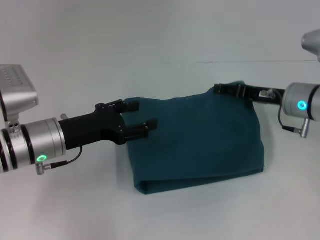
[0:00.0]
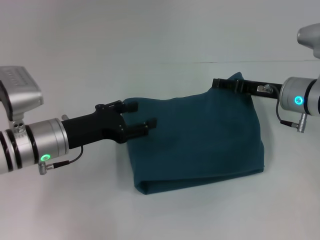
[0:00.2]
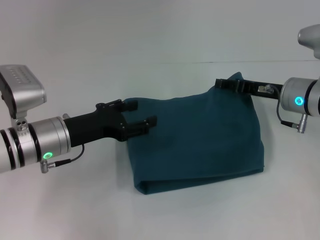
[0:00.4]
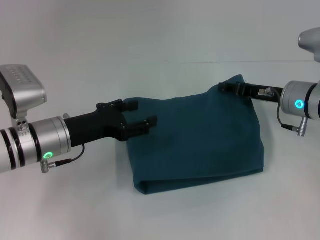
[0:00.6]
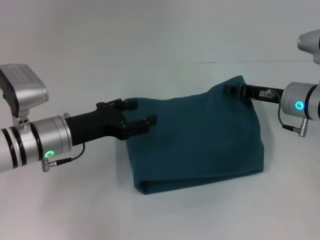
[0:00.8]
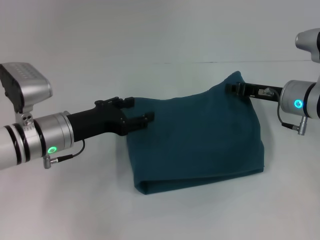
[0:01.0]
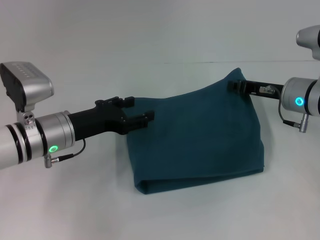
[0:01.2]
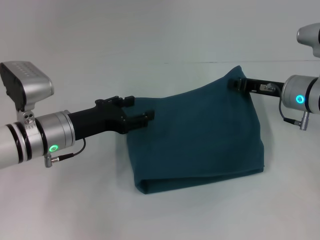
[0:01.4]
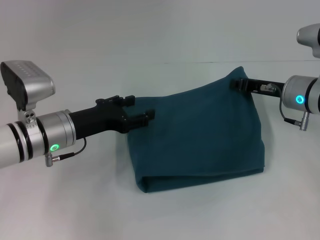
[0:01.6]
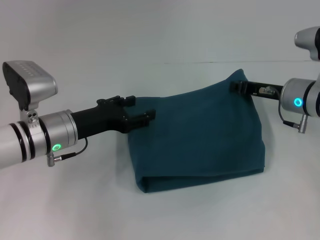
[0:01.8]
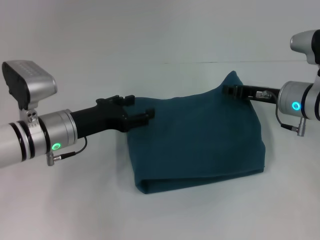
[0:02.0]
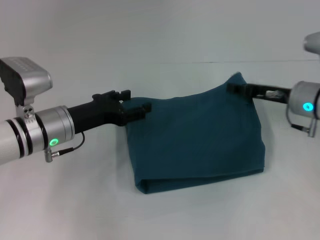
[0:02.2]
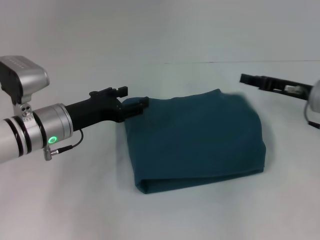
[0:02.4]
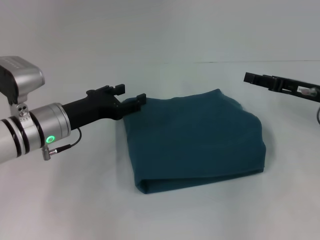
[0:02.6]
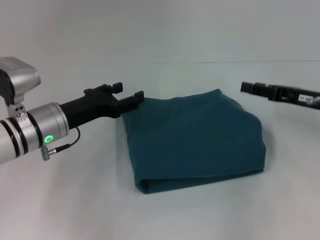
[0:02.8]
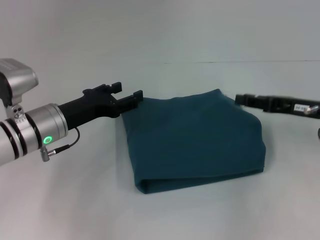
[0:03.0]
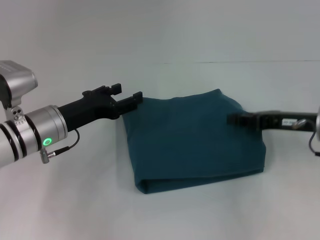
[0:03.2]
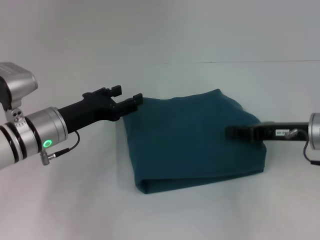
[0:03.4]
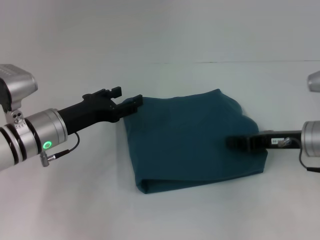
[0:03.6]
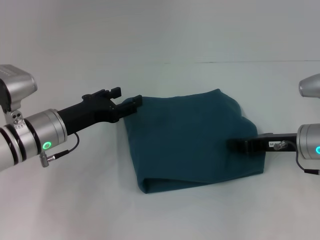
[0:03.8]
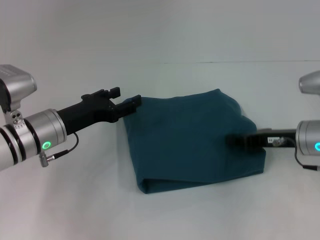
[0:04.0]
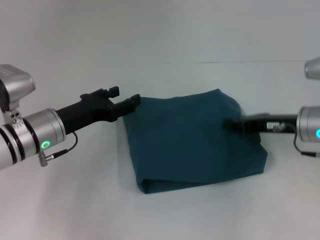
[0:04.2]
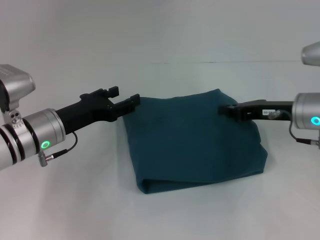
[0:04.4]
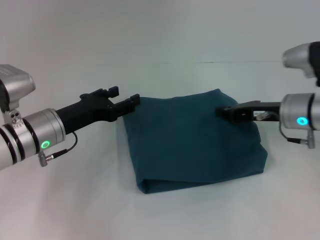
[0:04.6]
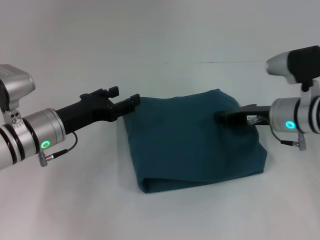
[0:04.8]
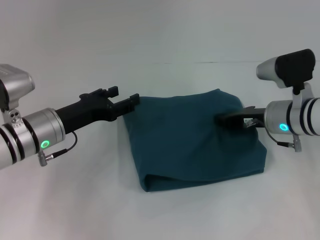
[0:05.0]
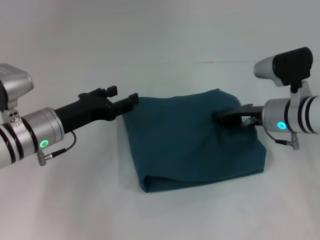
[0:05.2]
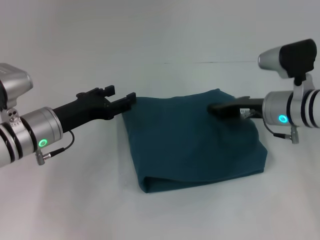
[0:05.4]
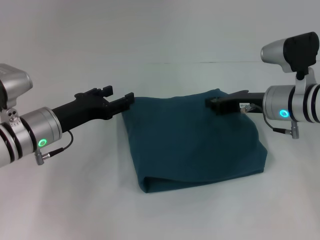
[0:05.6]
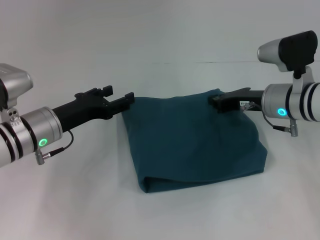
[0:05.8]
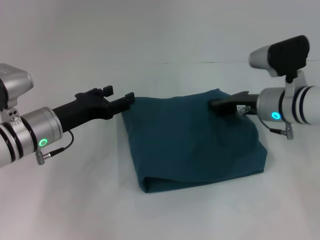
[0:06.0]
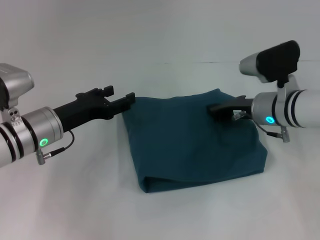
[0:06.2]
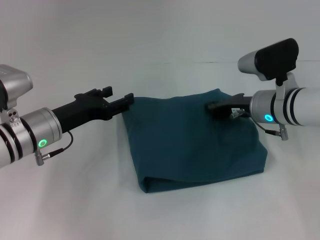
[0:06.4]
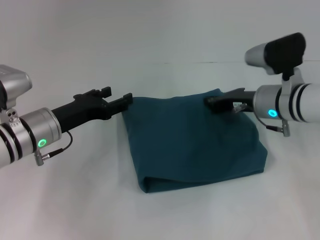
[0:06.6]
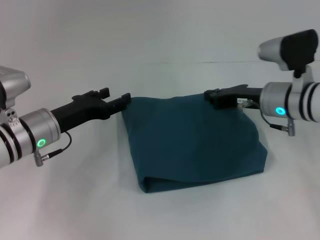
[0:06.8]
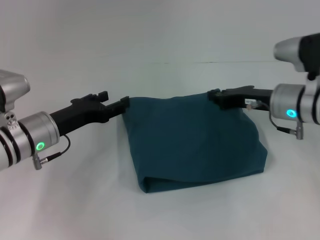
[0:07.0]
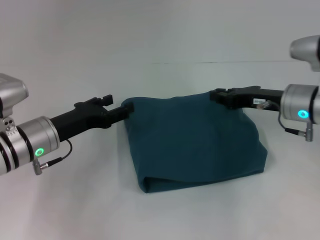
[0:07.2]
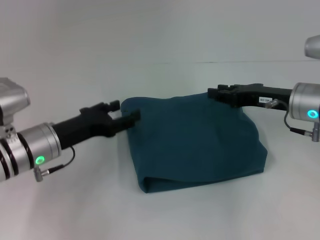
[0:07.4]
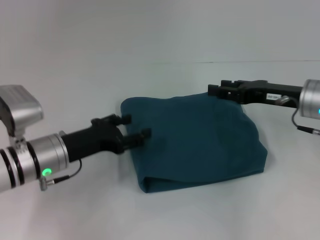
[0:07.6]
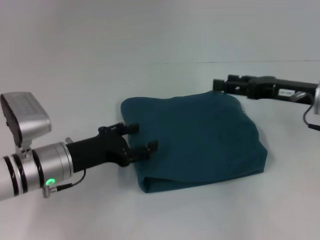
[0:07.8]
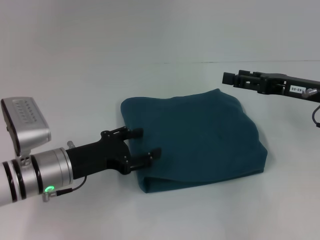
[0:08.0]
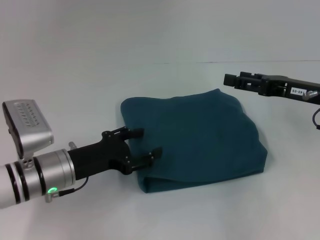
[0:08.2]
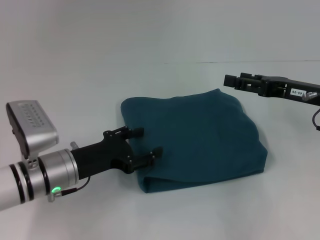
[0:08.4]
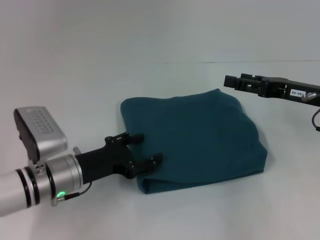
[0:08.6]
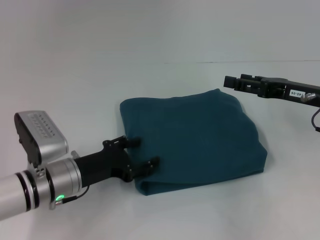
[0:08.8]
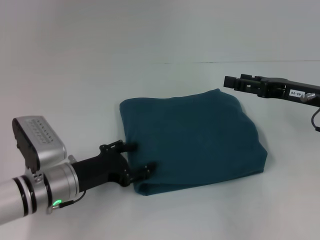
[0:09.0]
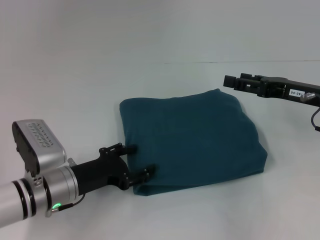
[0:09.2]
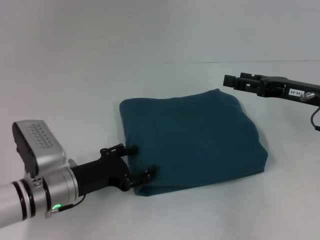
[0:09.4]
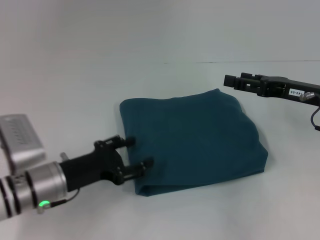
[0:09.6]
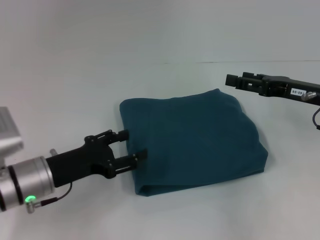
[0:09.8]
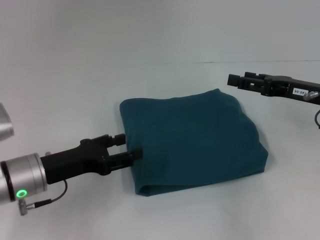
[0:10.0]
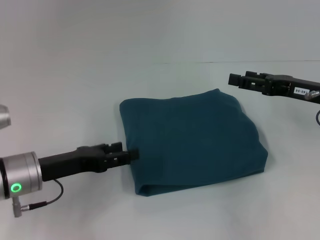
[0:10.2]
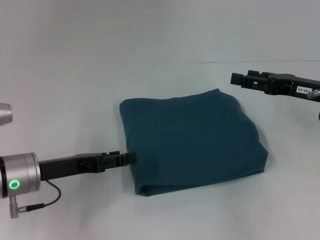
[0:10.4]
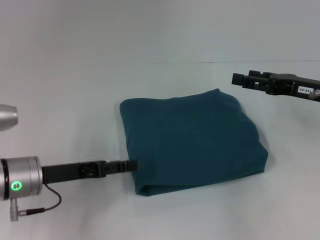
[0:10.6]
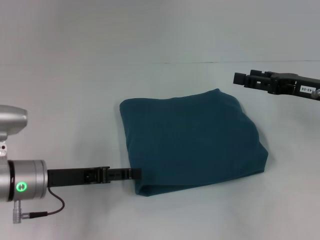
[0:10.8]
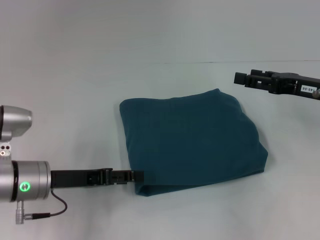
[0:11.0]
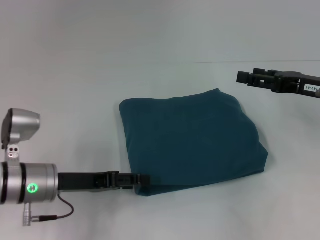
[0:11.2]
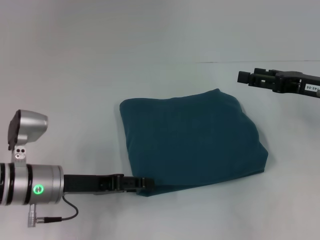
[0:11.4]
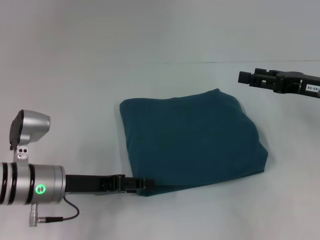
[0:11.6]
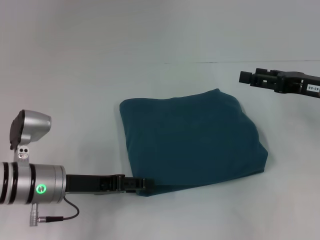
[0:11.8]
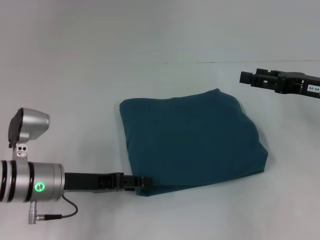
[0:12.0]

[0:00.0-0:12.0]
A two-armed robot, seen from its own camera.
0:00.0 to 0:01.6: The right gripper closes its fingers.
0:01.6 to 0:03.0: The right gripper shifts approximately 5 cm backward, and opens.
0:03.0 to 0:04.4: The right gripper closes up.
0:04.4 to 0:06.0: The right gripper moves approximately 5 cm.
0:06.0 to 0:07.6: The right gripper shifts by approximately 5 cm, and opens its fingers.
0:07.6 to 0:09.0: The right gripper opens its fingers.
0:09.0 to 0:10.4: The left gripper changes place by approximately 5 cm.
0:10.4 to 0:12.0: There are only small adjustments of the grippers.

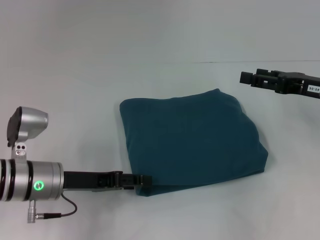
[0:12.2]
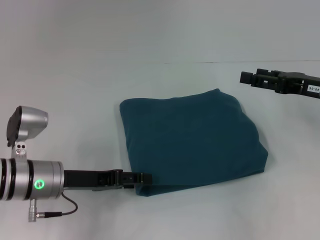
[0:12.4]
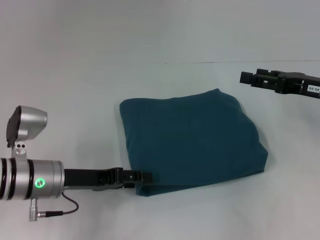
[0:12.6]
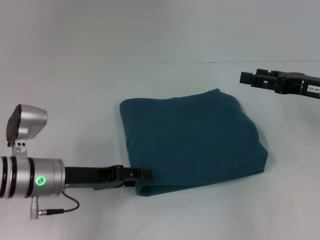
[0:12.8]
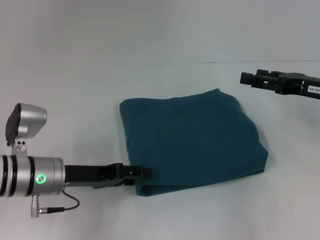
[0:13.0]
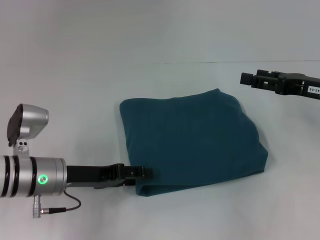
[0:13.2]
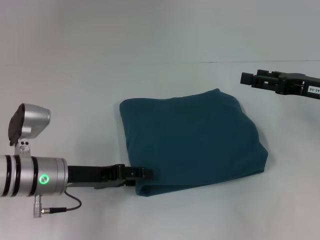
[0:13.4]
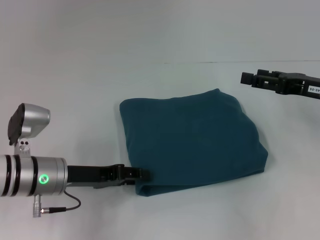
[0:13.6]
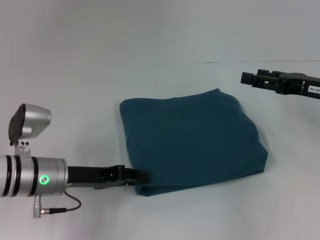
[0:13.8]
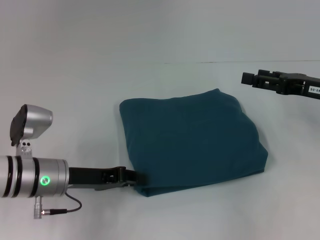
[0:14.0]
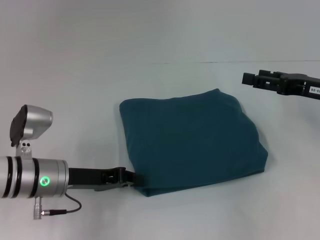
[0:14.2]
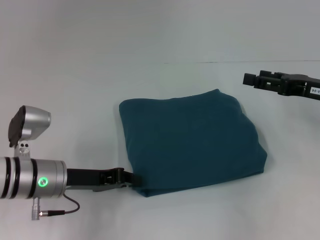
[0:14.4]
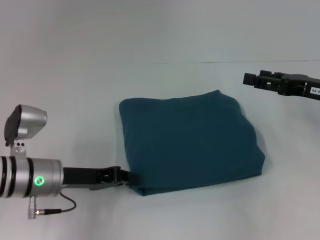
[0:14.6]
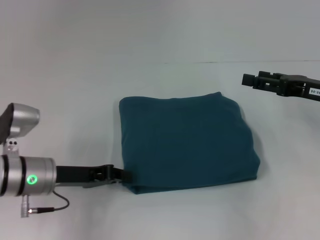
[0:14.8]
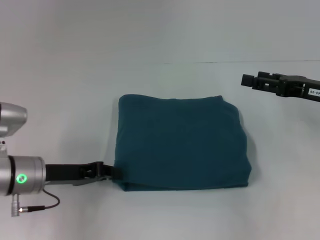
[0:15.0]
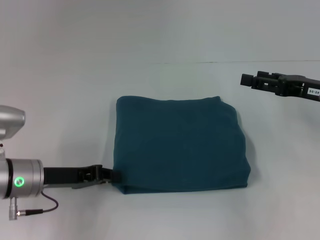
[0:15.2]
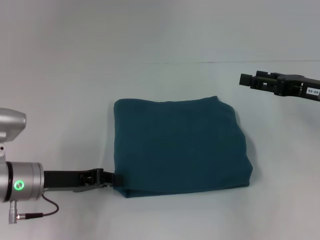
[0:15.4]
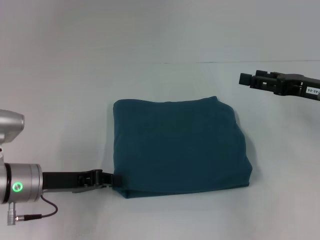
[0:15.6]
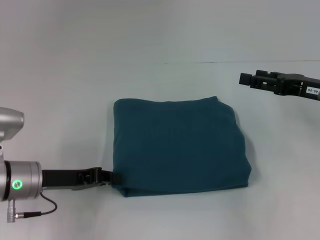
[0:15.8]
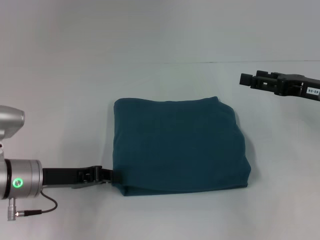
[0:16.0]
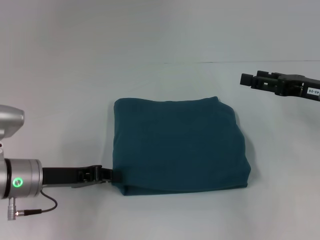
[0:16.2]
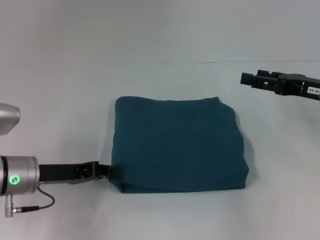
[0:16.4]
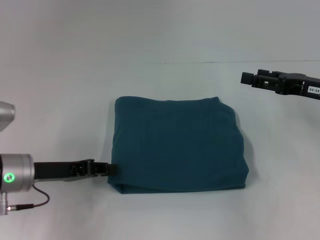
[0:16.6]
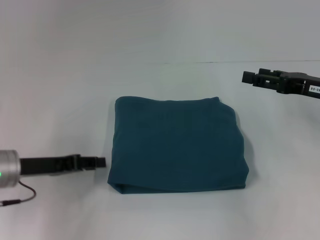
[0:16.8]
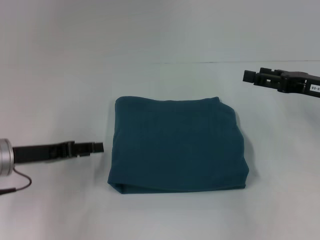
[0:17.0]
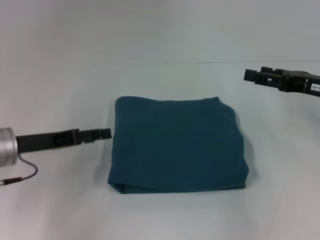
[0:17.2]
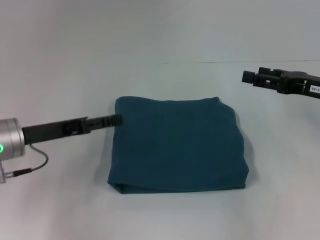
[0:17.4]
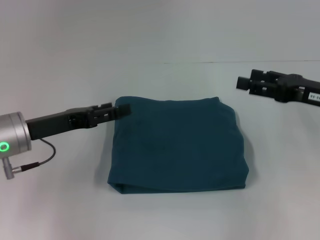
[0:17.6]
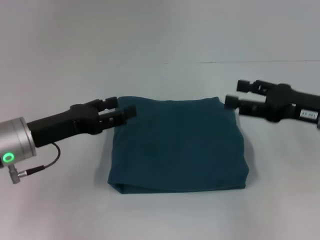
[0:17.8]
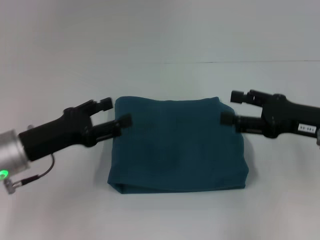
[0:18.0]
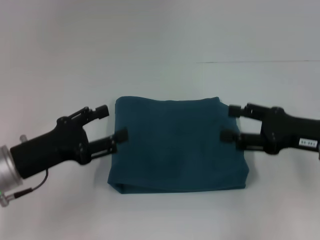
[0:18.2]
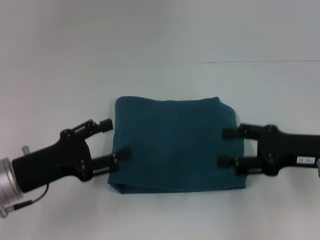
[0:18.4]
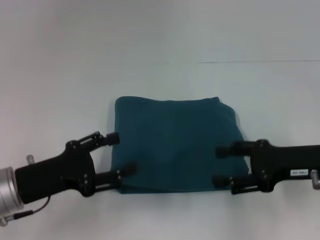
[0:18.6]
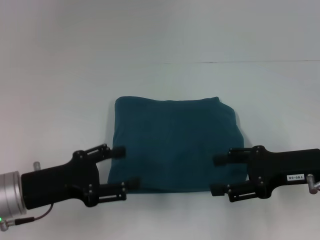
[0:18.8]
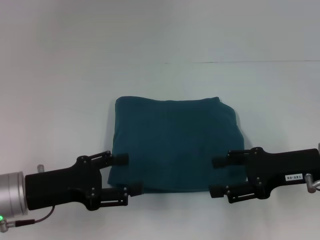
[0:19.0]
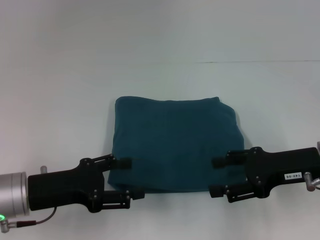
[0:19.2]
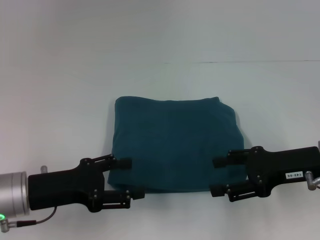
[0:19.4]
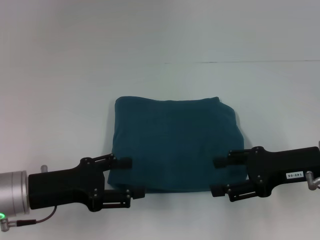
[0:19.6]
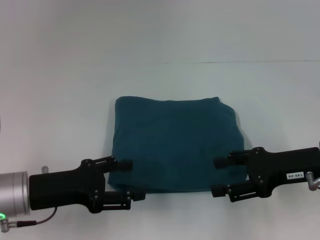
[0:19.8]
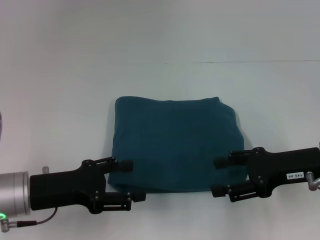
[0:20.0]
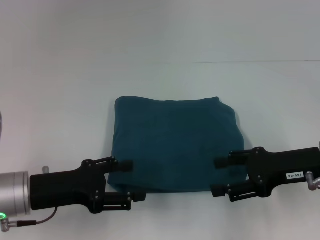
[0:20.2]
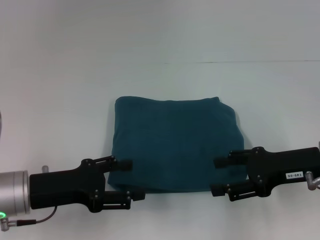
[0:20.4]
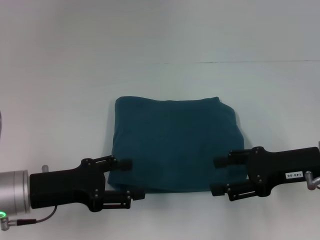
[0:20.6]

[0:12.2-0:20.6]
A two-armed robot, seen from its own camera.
0:12.2 to 0:13.6: The grippers move only a little.
0:13.6 to 0:15.0: The left gripper closes up.
0:15.0 to 0:16.4: Neither gripper changes place.
0:16.4 to 0:17.8: The left gripper opens its fingers.
0:17.8 to 0:19.2: The left gripper goes approximately 5 cm backward.
0:19.2 to 0:20.6: Both grippers stay about where they are.

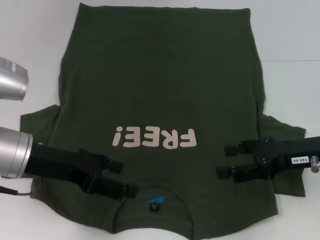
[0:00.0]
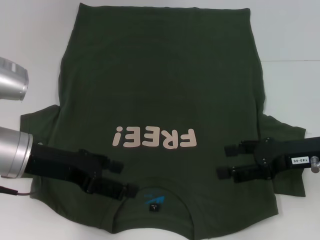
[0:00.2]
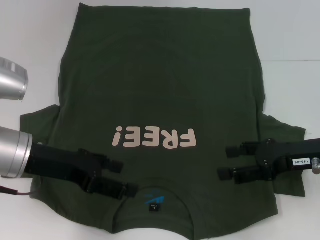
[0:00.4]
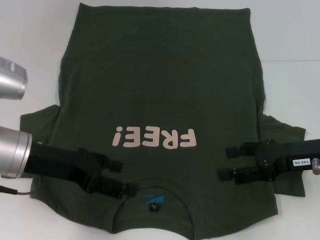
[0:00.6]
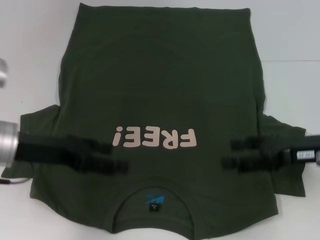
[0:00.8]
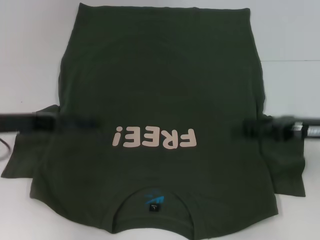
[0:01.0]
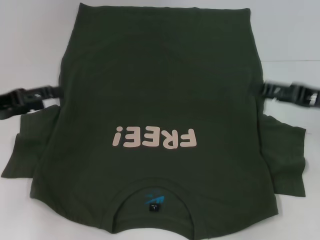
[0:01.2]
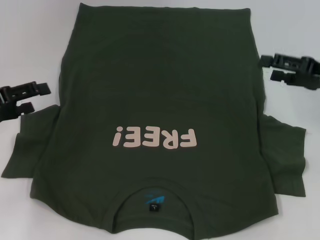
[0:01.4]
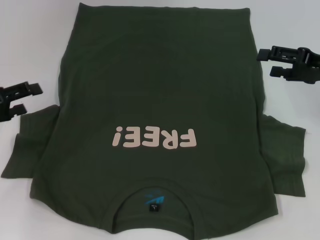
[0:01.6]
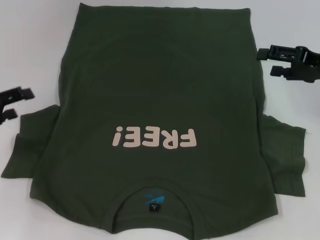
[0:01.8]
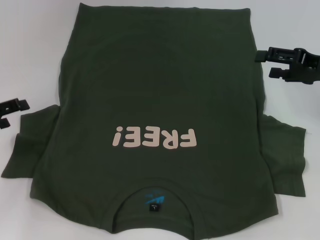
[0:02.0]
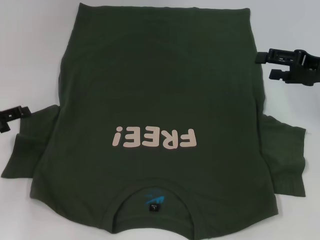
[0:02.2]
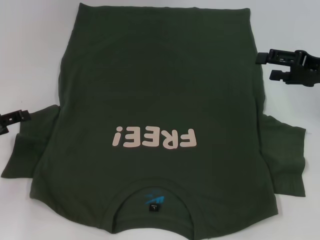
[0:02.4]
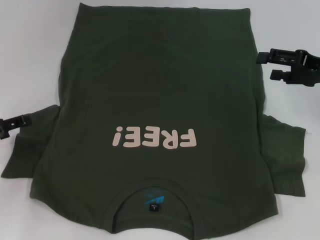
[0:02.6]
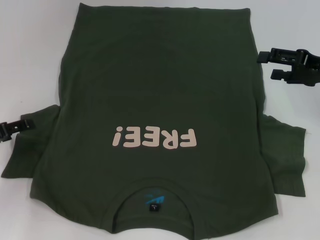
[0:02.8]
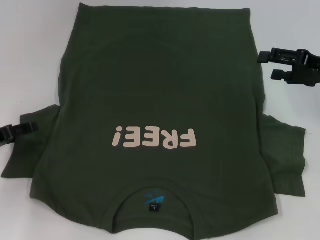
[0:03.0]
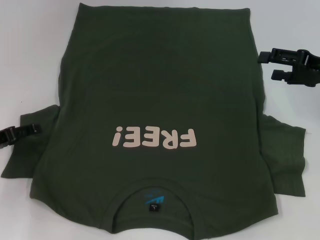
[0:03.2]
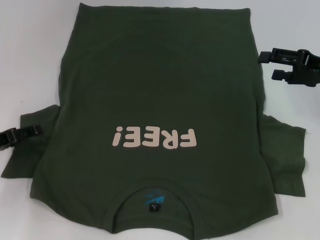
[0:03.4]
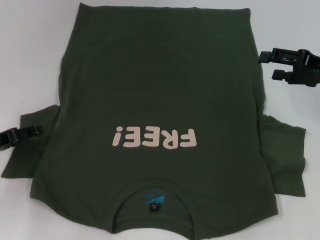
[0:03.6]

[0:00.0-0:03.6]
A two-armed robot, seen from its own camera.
0:00.0 to 0:01.8: The right gripper moves forward and to the right, about 10 cm. Meanwhile the left gripper travels to the left by roughly 15 cm.
0:01.8 to 0:03.6: The left gripper travels downward by approximately 5 cm.
